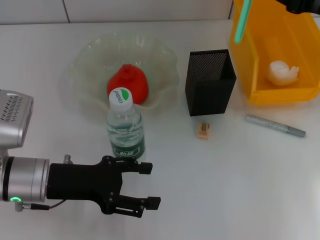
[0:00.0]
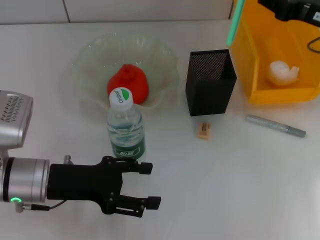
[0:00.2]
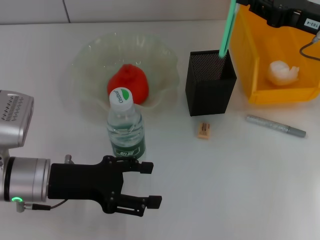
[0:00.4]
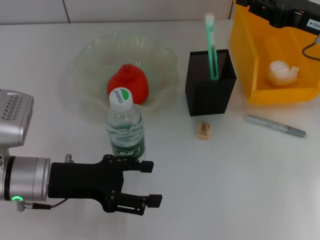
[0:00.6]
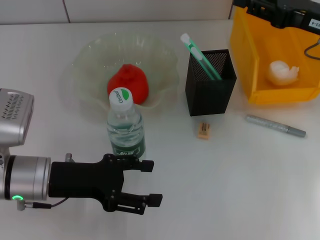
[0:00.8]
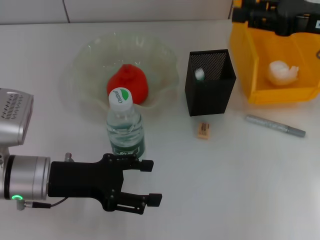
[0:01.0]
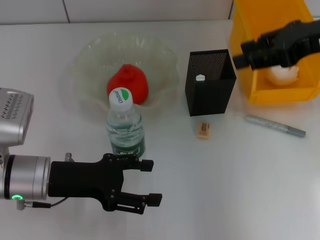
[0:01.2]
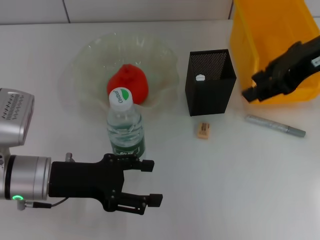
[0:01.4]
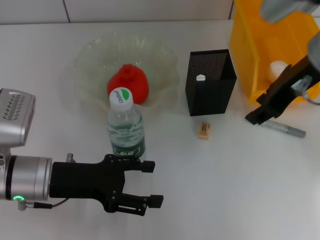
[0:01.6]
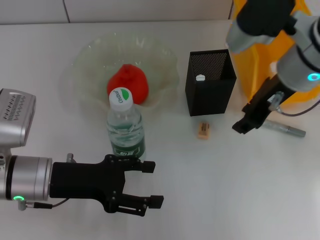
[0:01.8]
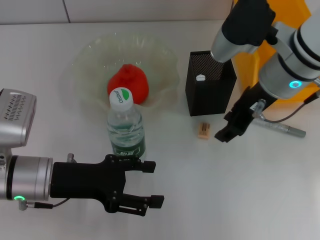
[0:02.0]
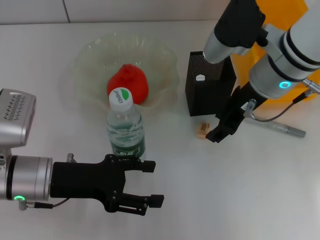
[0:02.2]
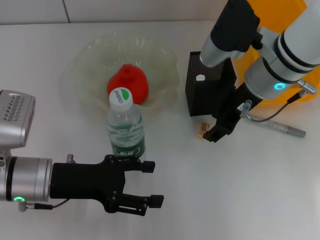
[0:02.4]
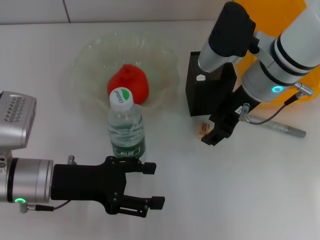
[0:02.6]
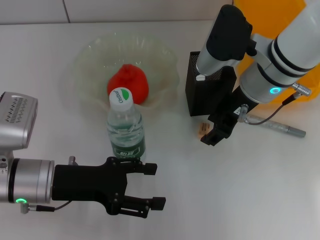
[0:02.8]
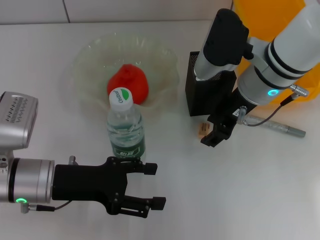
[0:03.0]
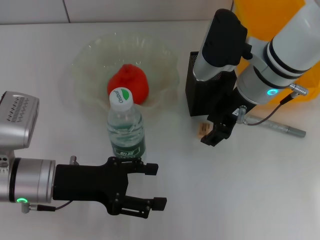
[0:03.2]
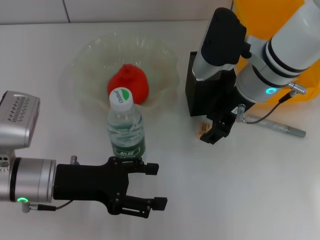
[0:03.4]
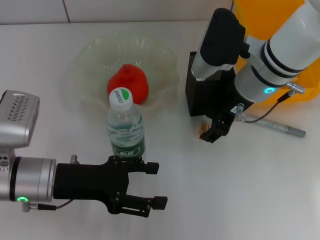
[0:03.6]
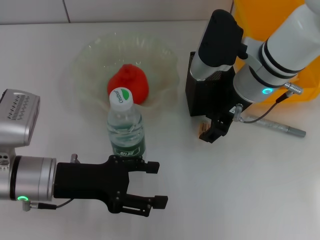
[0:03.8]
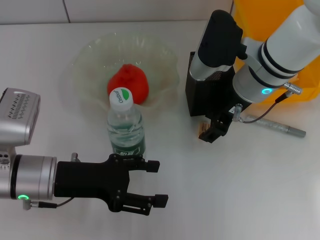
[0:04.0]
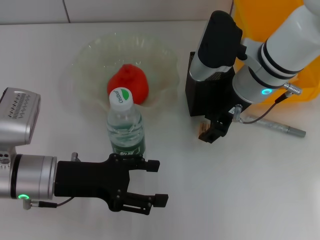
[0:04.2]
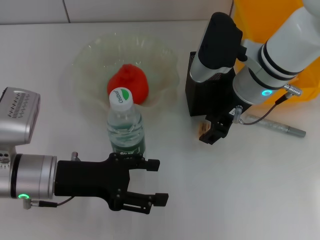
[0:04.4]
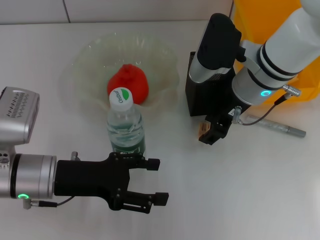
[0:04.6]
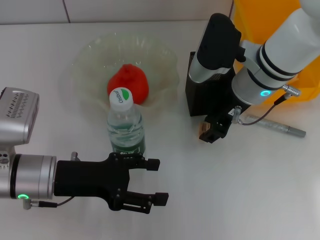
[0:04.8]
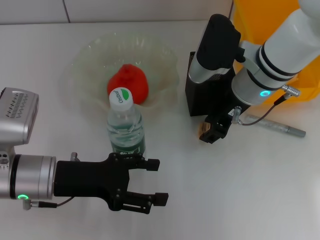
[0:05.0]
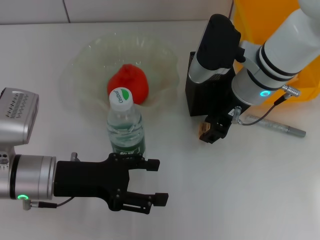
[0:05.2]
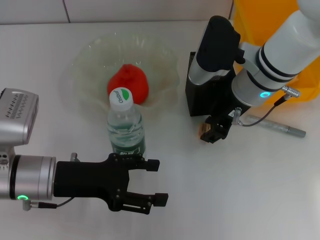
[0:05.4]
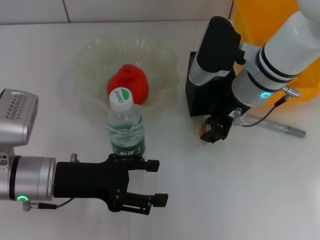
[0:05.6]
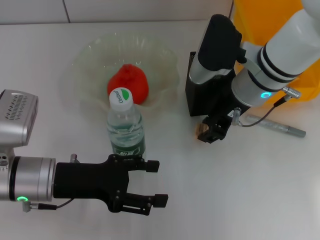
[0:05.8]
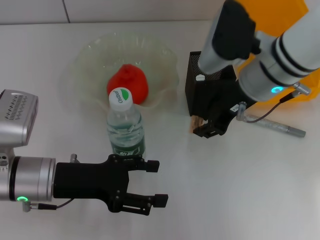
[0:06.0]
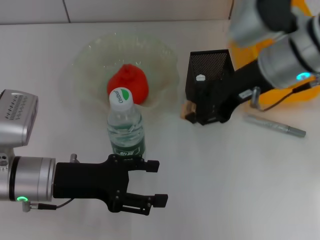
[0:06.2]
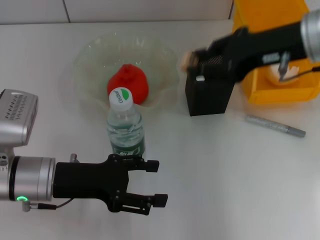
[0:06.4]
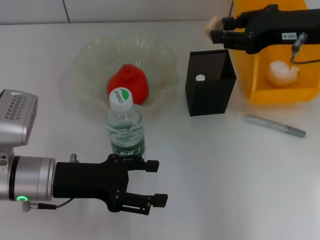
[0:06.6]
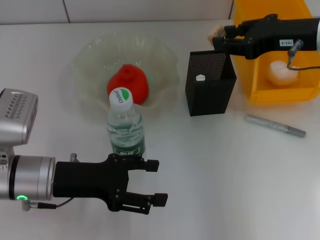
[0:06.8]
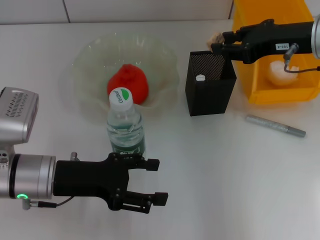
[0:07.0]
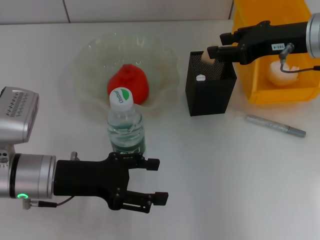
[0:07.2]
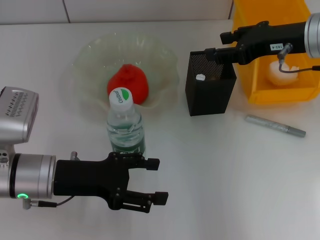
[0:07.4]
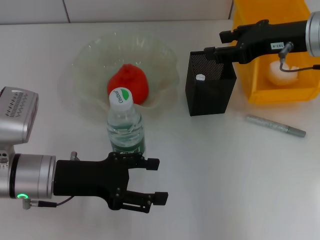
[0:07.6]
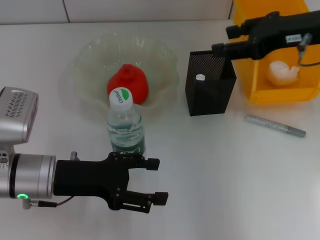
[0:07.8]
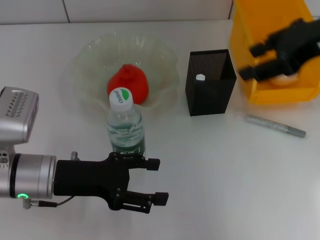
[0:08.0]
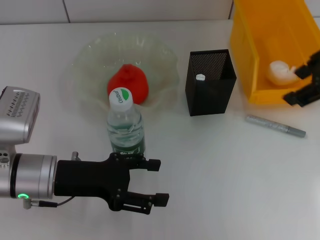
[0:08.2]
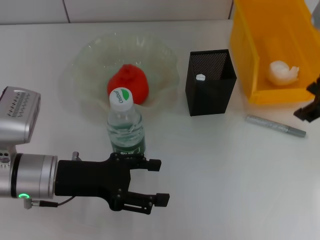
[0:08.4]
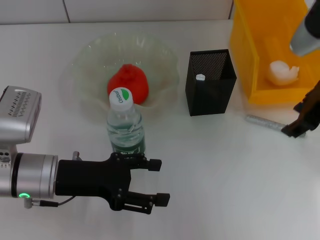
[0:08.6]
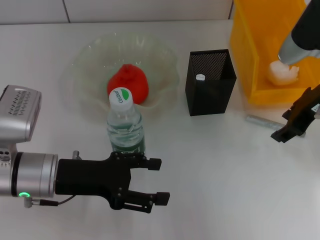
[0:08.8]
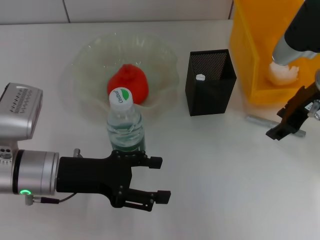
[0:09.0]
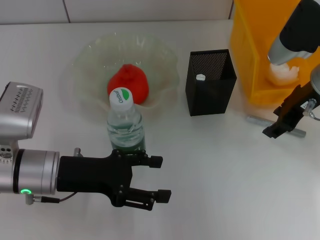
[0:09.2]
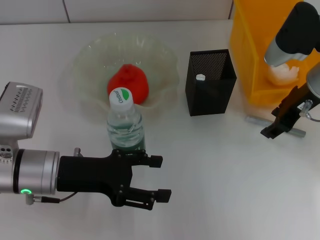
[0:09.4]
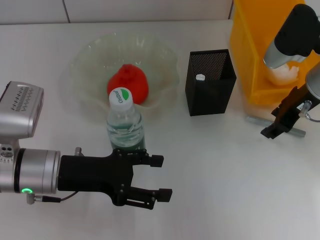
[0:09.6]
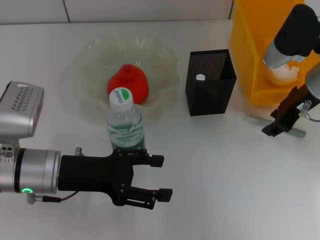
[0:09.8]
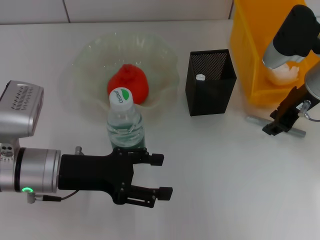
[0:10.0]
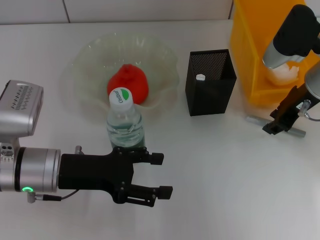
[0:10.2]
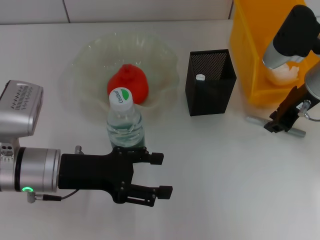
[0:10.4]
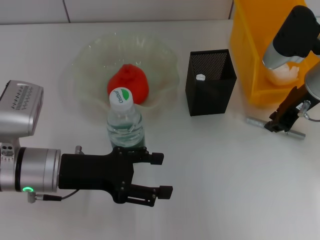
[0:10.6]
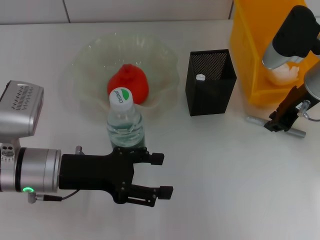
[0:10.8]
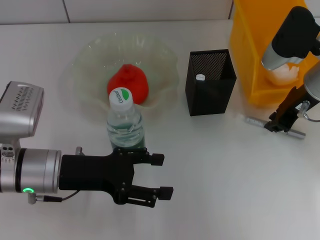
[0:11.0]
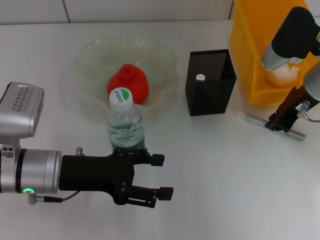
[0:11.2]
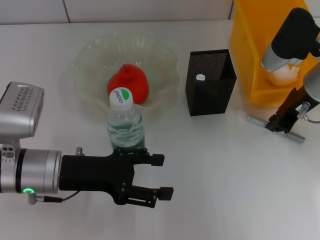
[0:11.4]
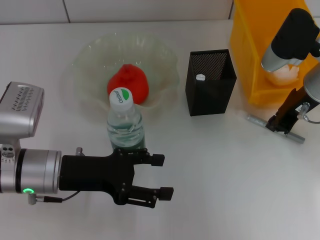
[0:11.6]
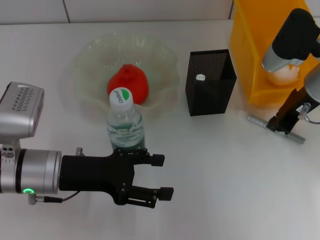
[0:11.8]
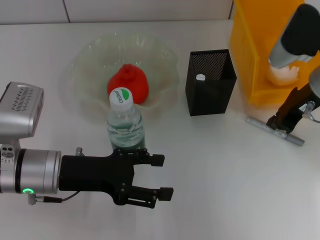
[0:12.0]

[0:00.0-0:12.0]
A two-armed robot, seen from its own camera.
Step, 0:01.0 to 0:05.6: Grab the eraser with the right hand.
Step, 0:05.8 to 0:07.4: Put the eraser into the pen holder with the right hand.
0:00.0 to 0:01.6: The right gripper shifts about 10 cm to the left, and opens its fingers.
0:01.6 to 0:03.0: The right gripper goes some 10 cm downward.
0:03.0 to 0:04.4: Both grippers stay about where they are.
0:04.4 to 0:06.0: There are only small adjustments of the grippers.
0:06.0 to 0:07.6: The right gripper is displaced to the right by roughly 10 cm.
0:07.6 to 0:09.0: The right gripper moves some 10 cm upward and comes back.
0:09.0 to 0:10.4: The grippers move only a little.
0:10.4 to 0:12.0: The right gripper closes up.

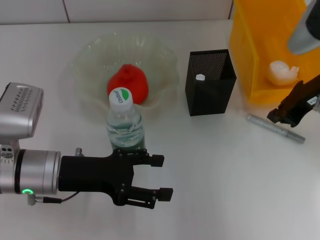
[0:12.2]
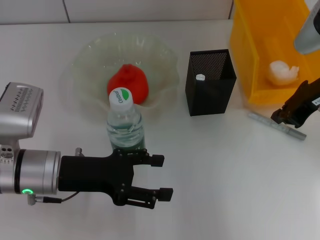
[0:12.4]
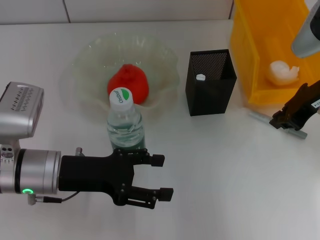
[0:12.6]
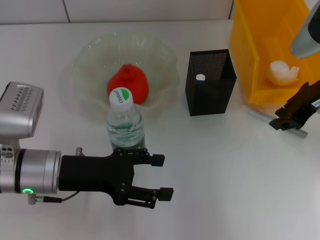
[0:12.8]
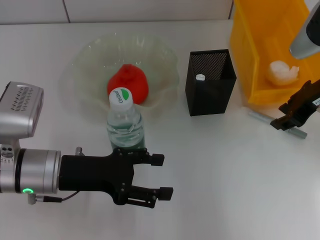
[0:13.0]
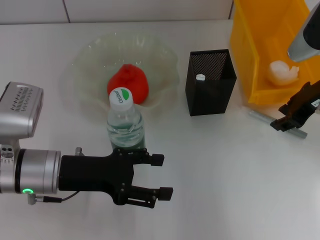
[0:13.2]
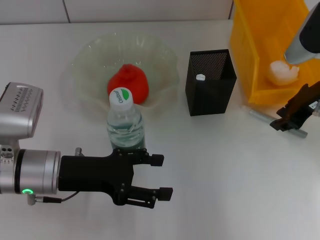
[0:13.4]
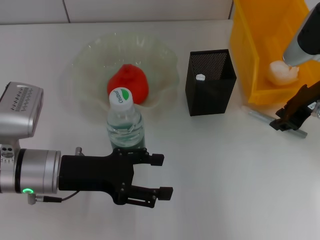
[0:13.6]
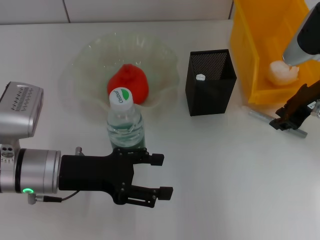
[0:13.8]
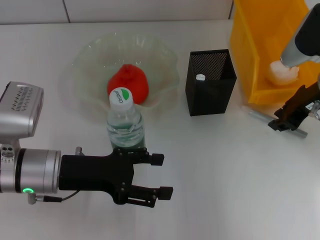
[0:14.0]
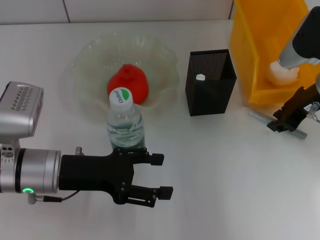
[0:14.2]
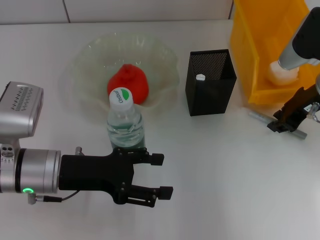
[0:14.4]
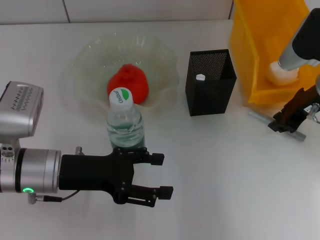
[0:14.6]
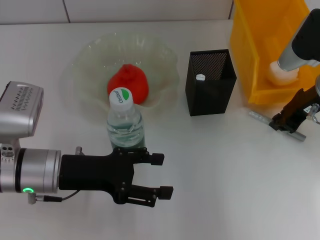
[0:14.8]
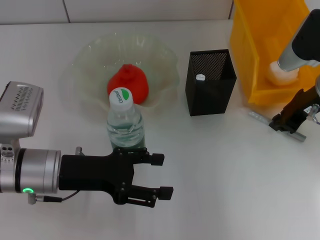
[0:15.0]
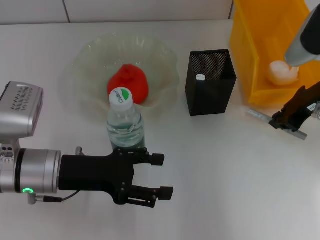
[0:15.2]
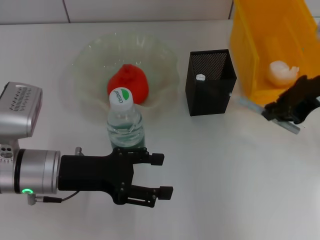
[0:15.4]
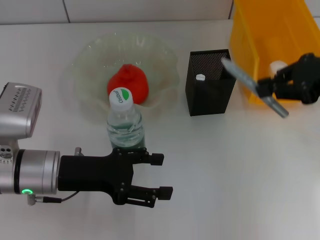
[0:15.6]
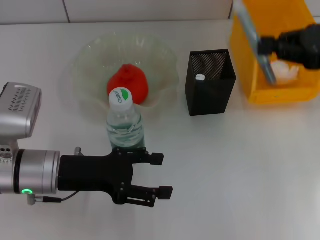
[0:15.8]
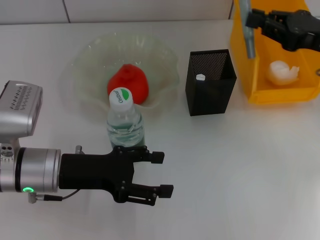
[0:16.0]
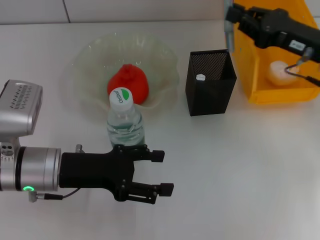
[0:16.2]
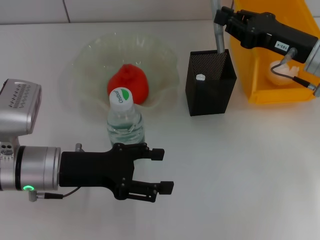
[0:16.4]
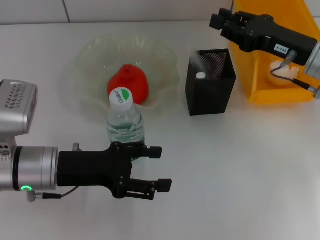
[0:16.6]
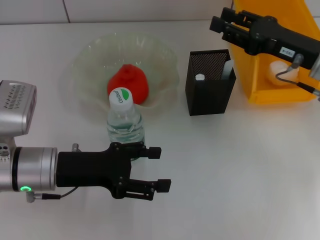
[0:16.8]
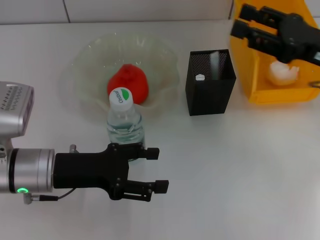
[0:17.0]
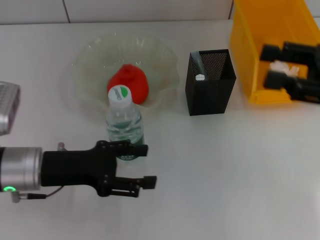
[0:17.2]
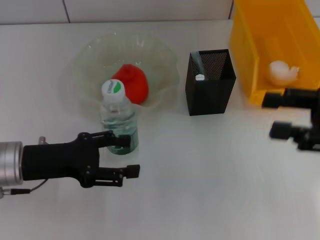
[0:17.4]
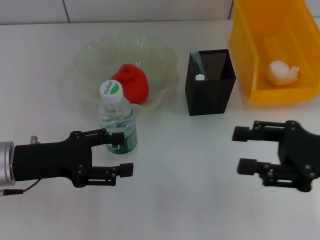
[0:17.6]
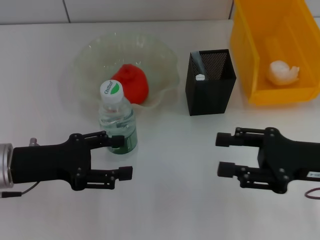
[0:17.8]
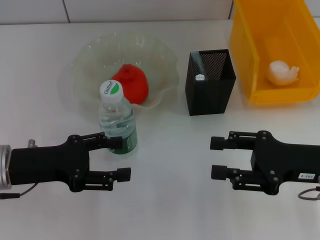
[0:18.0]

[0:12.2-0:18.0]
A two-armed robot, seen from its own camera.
Step, 0:12.2 to 0:15.0: Grab the gray glue with the right hand.
Step, 0:15.2 to 0:16.6: Place the gray glue into the pen holder with the right hand.
0:12.2 to 0:13.6: The right gripper opens its fingers.
0:13.6 to 0:15.0: Both grippers stay put.
0:15.0 to 0:16.6: The right gripper goes upward and returns, roughly 10 cm each way.
0:16.6 to 0:18.0: The left gripper is displaced to the left by approximately 5 cm. Meanwhile the right gripper travels backward by approximately 10 cm, and opens.
